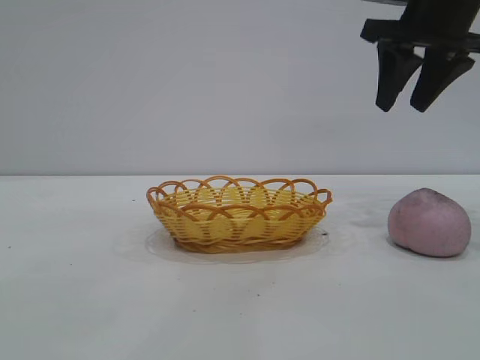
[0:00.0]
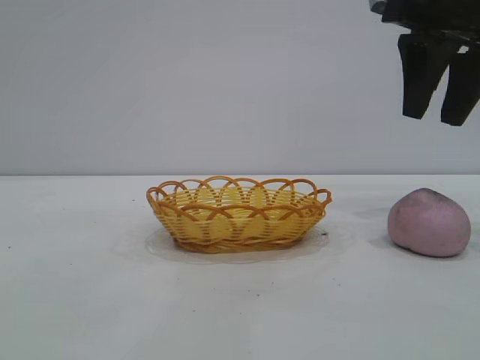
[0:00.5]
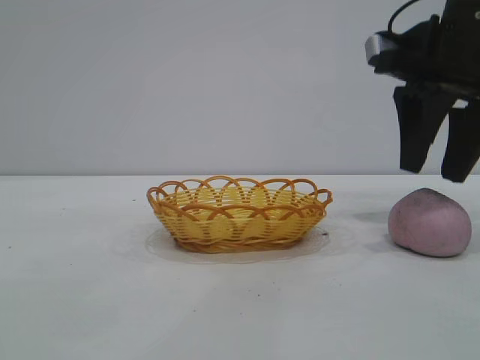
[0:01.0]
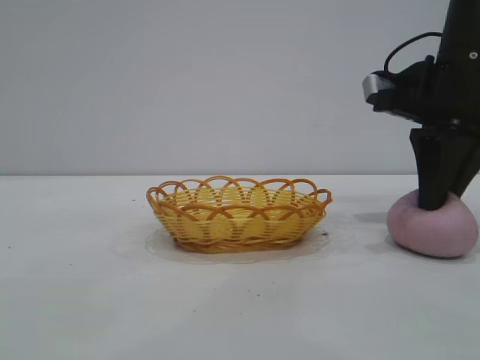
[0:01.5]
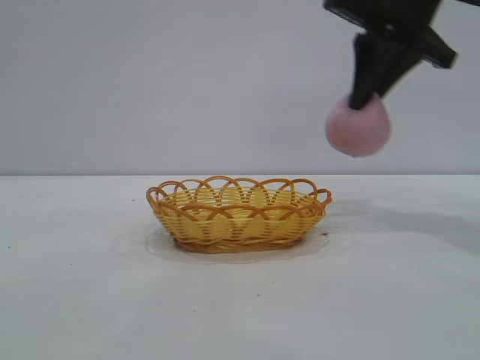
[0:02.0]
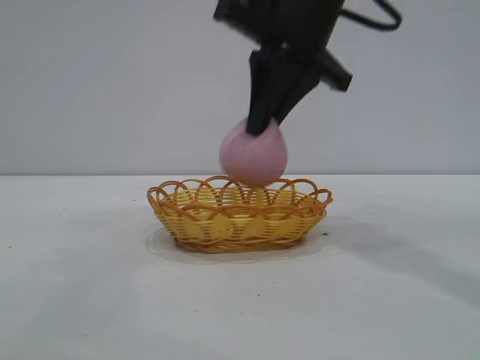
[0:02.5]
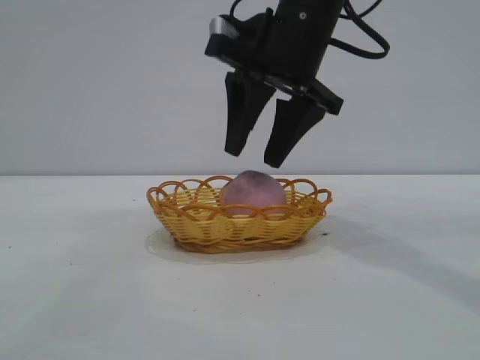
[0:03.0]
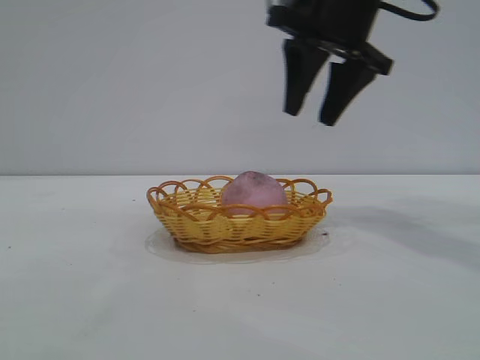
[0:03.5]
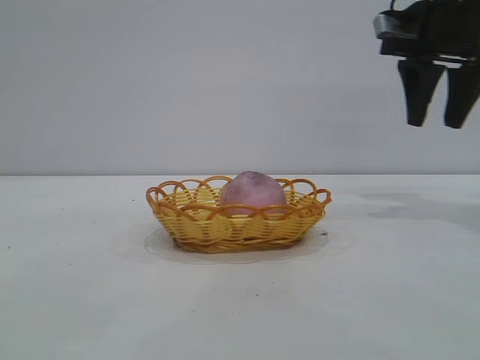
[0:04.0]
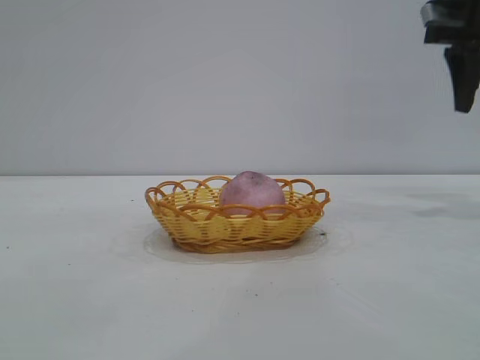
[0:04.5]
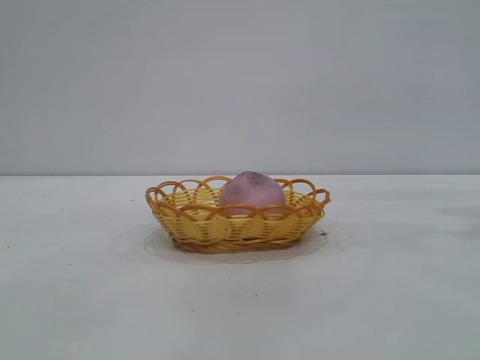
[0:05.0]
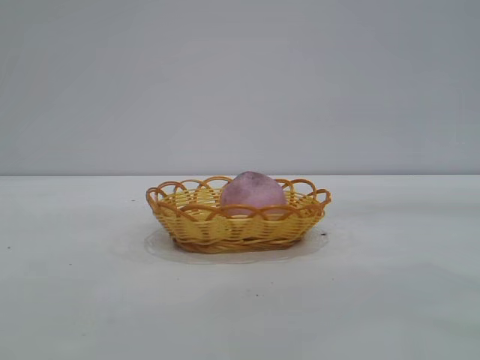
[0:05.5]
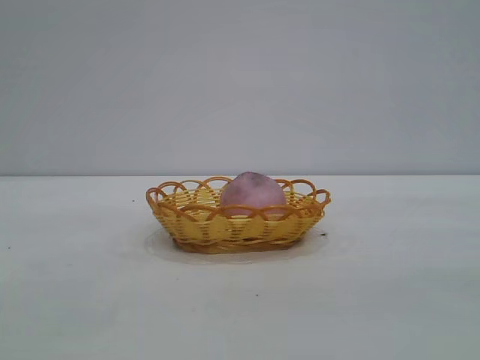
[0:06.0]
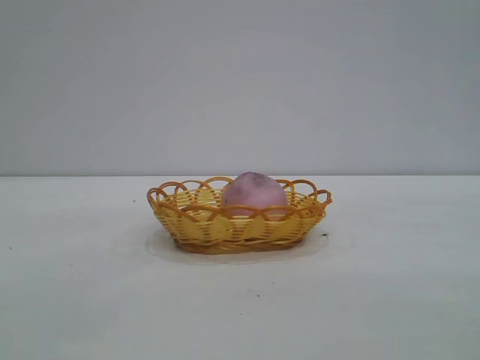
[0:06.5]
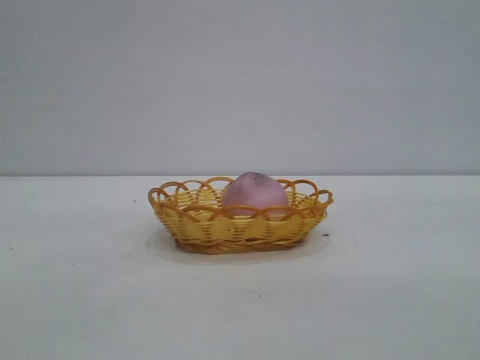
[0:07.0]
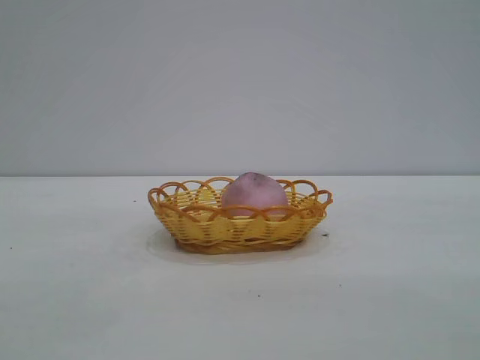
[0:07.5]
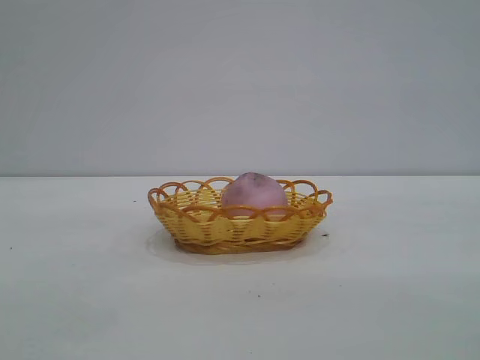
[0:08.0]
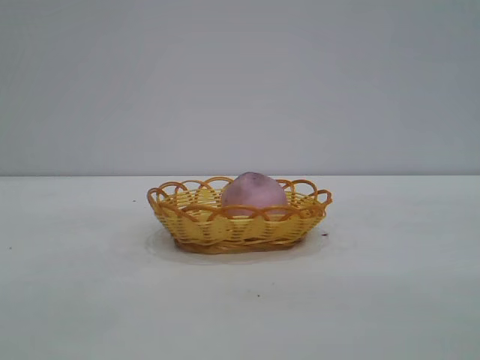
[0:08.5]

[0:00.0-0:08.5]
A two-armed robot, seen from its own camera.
Task of the whole recording: pick up the peach and put it into the basket.
Step, 0:02.0 to 0:03.0: place the peach into the basket.
